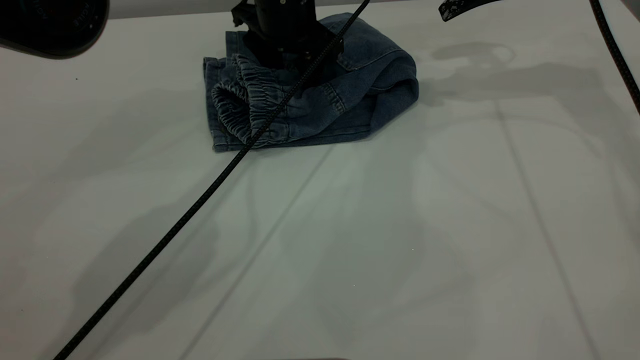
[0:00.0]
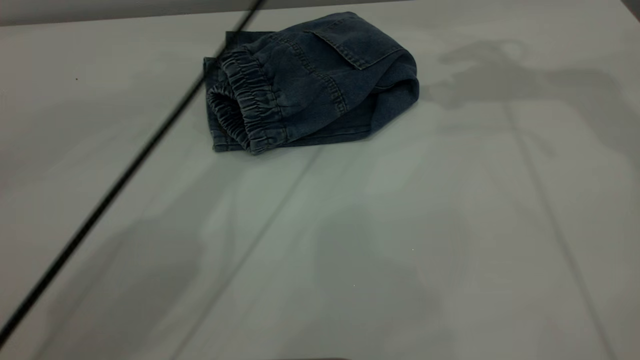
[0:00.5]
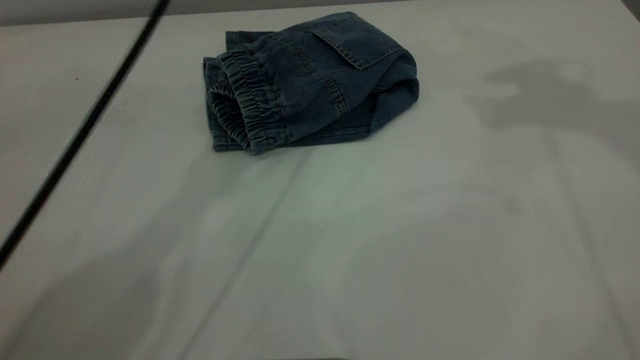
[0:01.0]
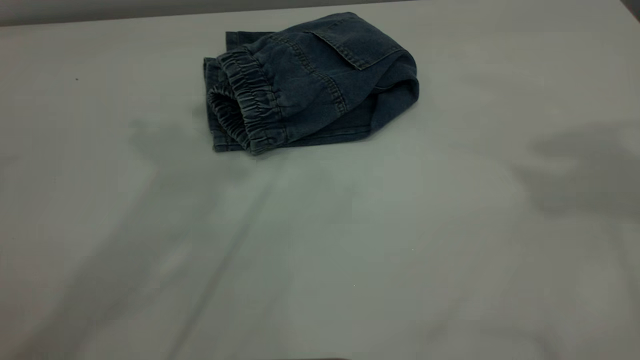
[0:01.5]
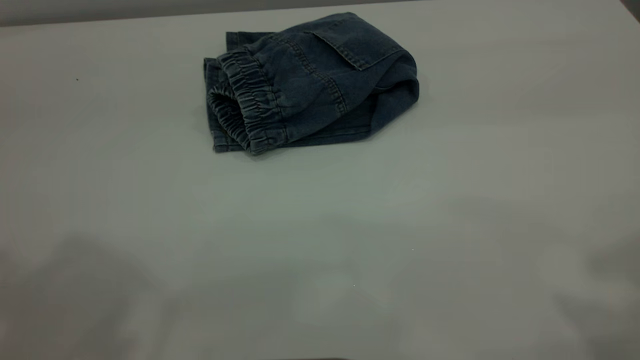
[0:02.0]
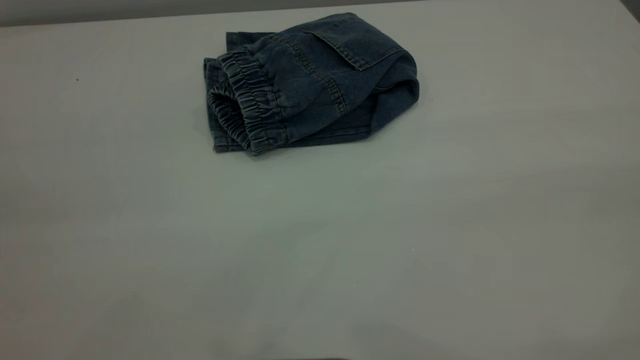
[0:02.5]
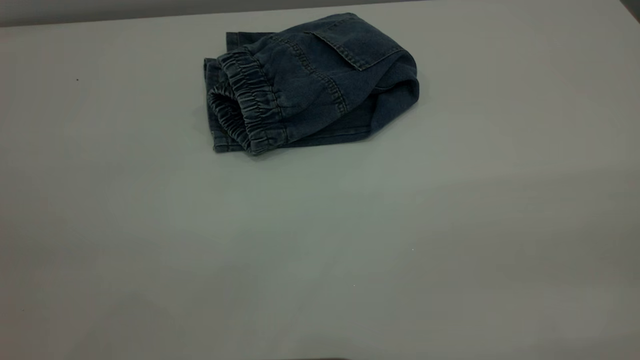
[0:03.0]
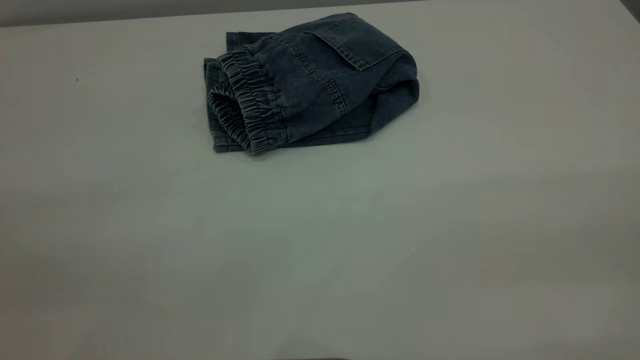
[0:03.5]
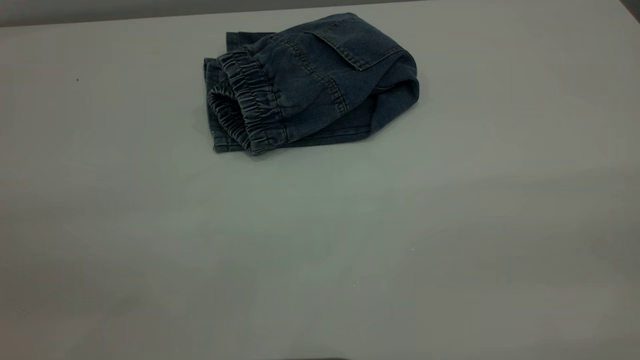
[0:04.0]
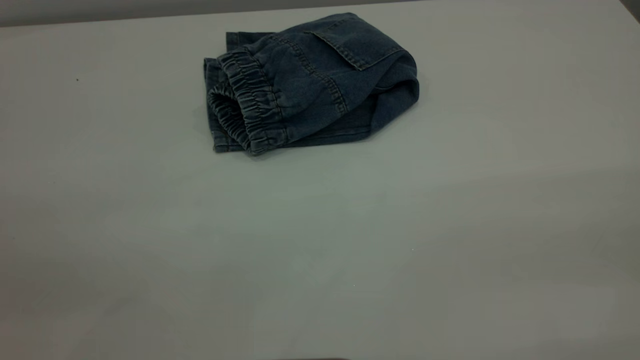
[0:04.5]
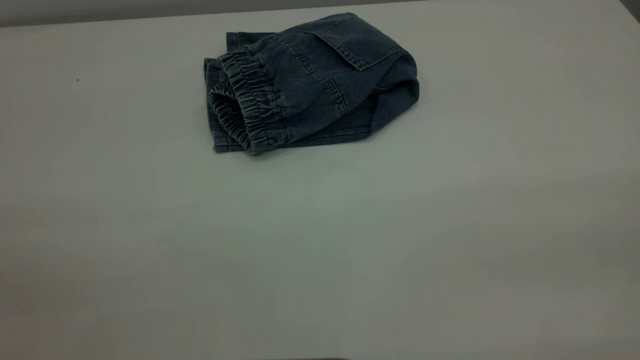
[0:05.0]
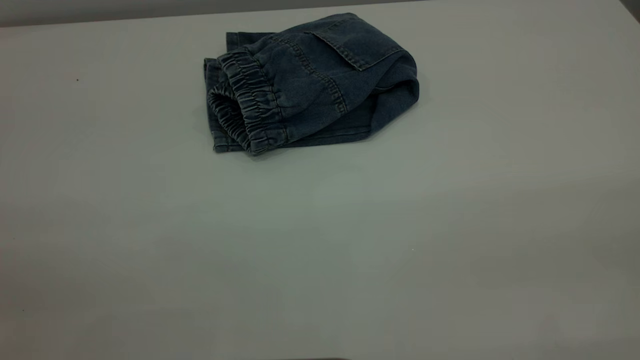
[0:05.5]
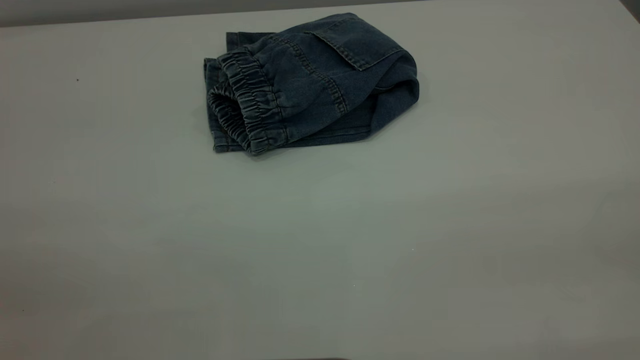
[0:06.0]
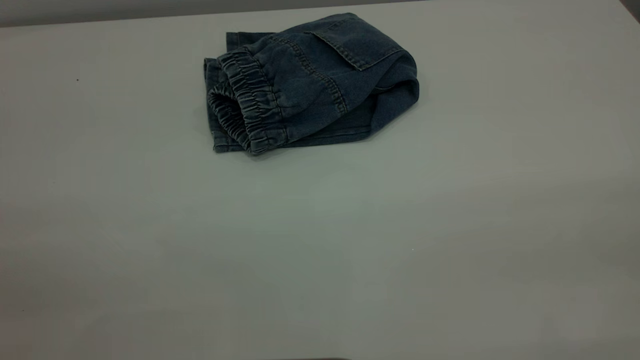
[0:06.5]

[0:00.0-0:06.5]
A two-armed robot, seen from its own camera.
0:00.0 to 0:02.0: The left gripper goes approximately 50 cm backward, upward and to the left; the right gripper shifts some 40 cm backward and upward.
